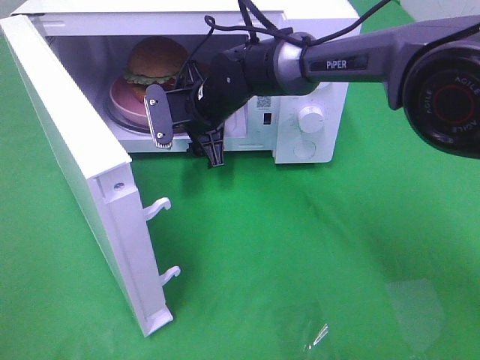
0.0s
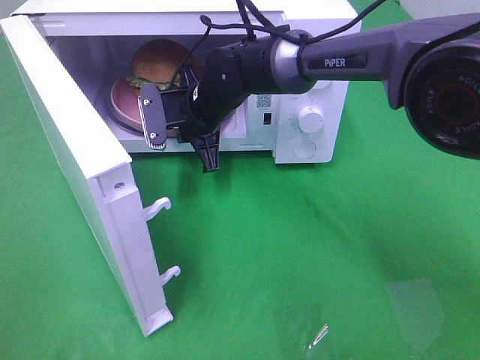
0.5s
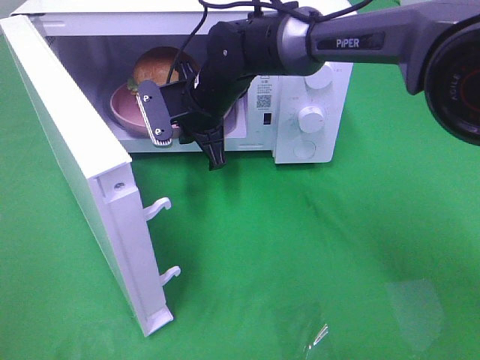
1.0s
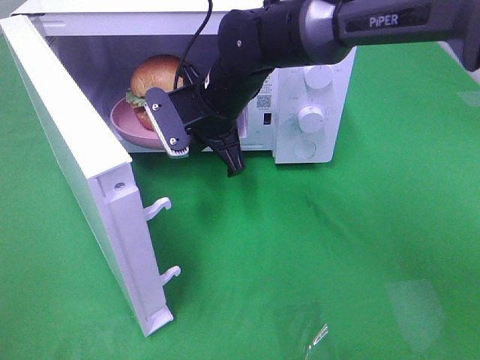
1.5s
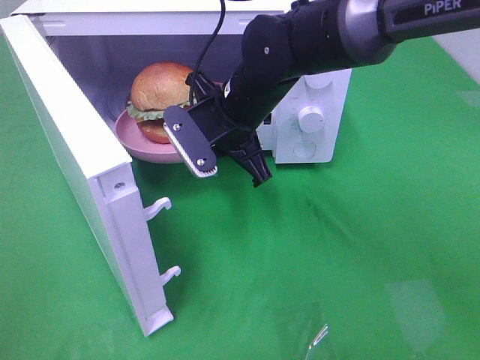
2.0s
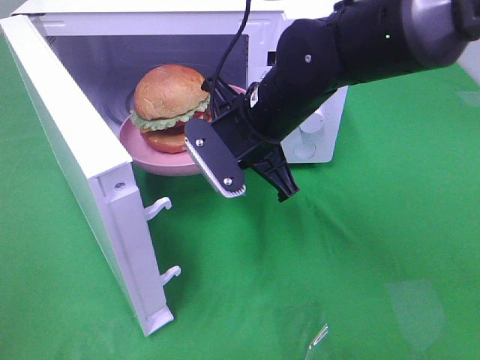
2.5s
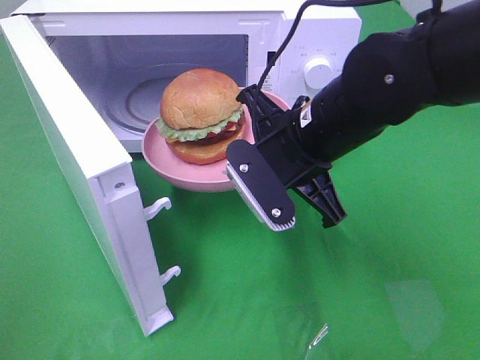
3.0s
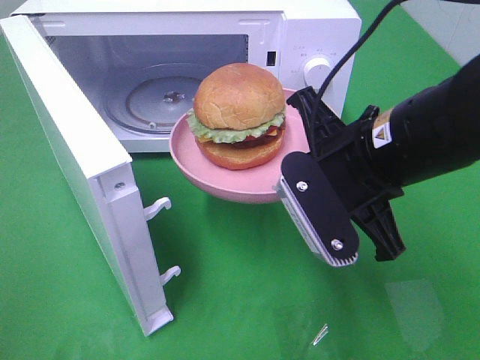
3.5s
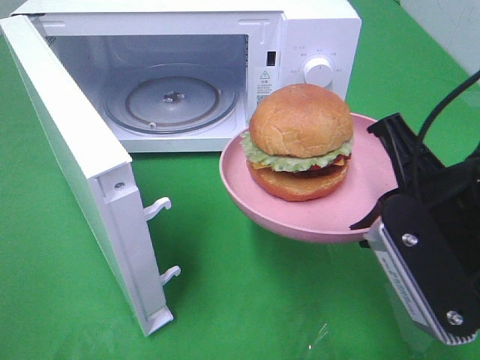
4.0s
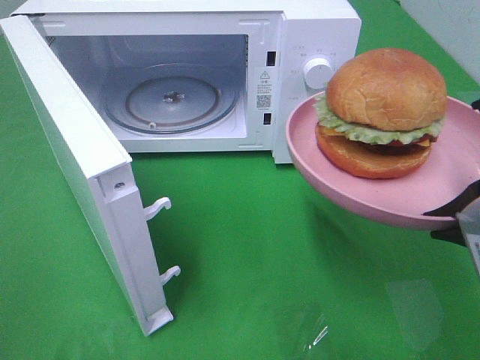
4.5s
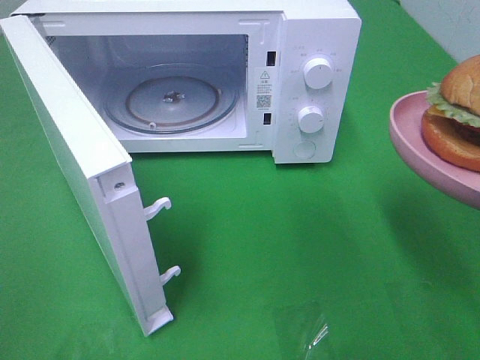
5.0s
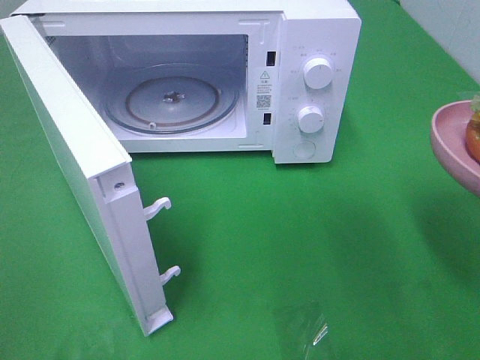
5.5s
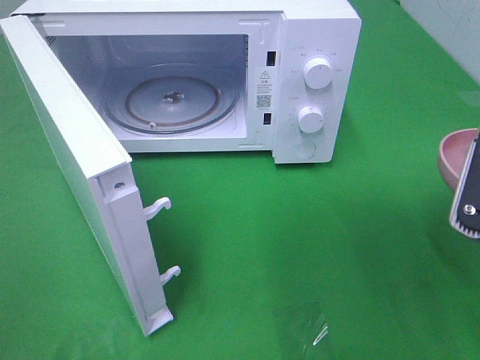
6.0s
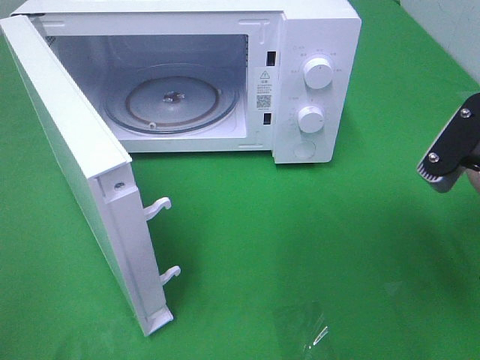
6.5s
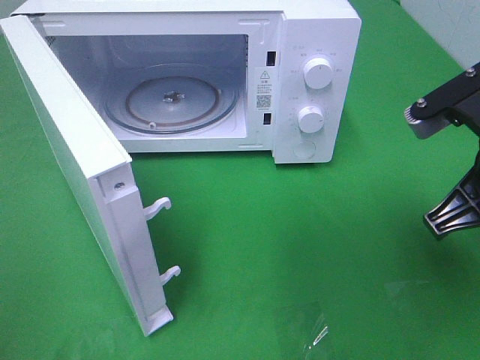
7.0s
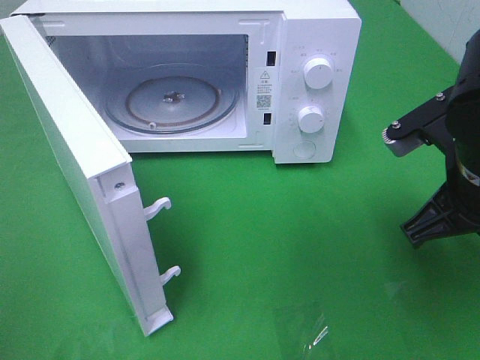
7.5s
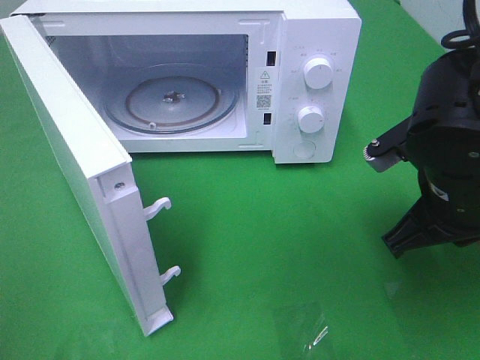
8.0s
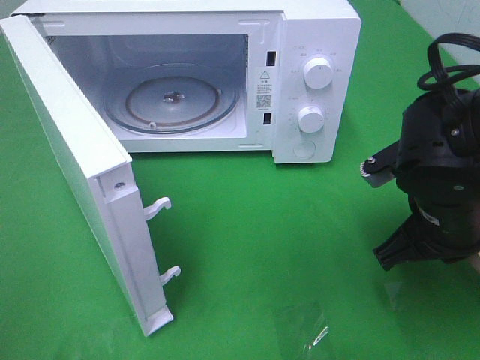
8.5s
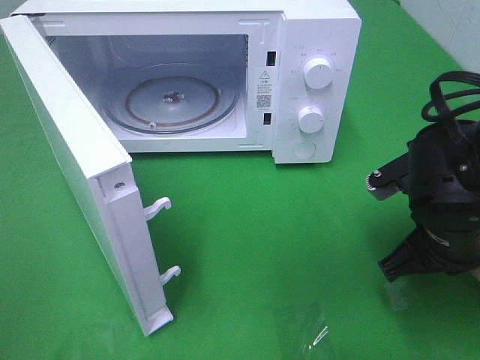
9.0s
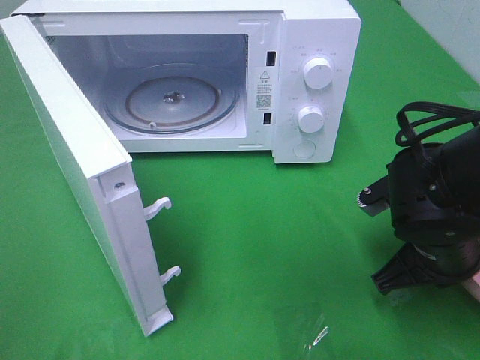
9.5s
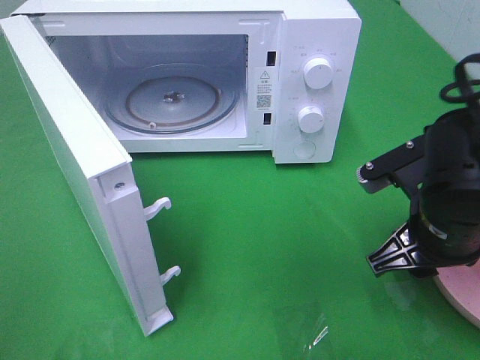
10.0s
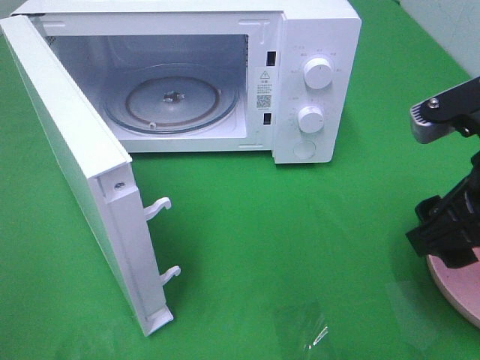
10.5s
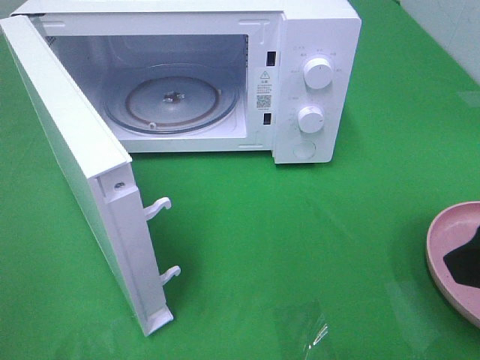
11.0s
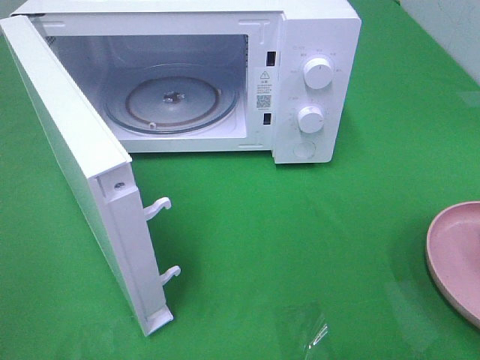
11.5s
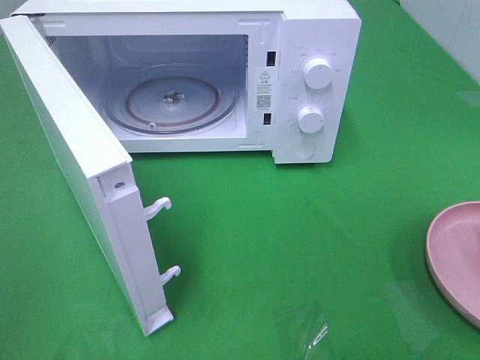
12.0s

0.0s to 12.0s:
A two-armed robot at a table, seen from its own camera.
Task of the whole recording: Heat the burger.
Step, 1.0s to 9.5s: Right hand: place the plate on the table.
0.0s to 2.0s: The right gripper heads backward, covering roughly 10 cm, and closes.
2.0s to 4.0s: The right gripper heads backward and to the right, covering some 25 cm.
4.0s to 6.0s: The right gripper is displaced to the right by some 5 cm.
6.0s to 8.0s: The right gripper heads forward and downward, covering approximately 10 cm.
8.0s to 10.0s: The right gripper opens.
10.0s to 12.0s: The right gripper shifts about 30 cm backward, upward and to the right.

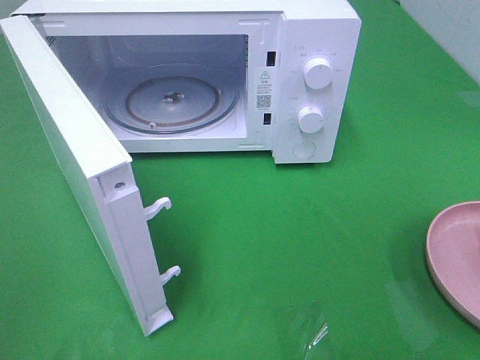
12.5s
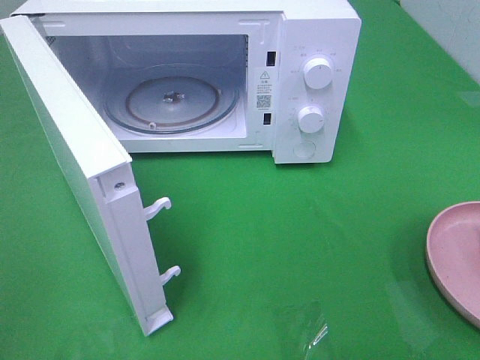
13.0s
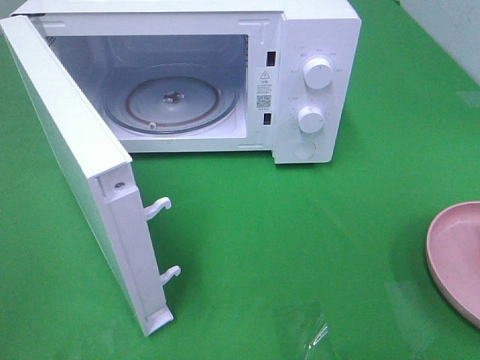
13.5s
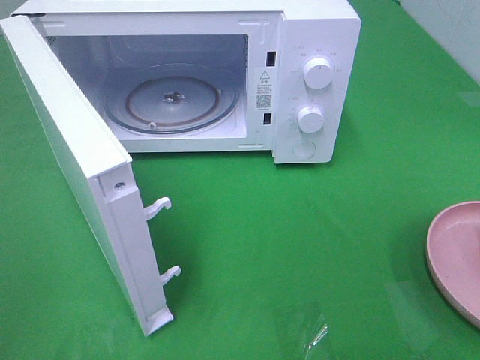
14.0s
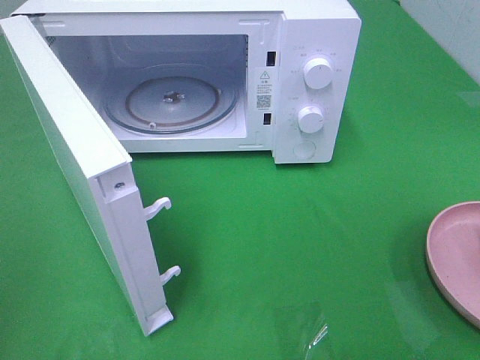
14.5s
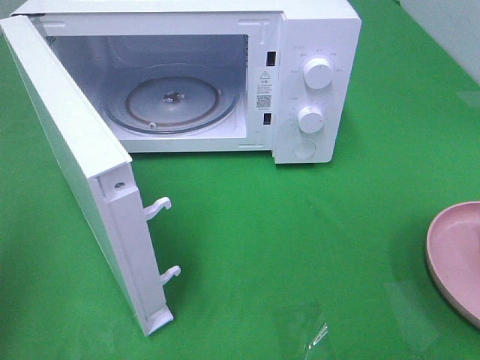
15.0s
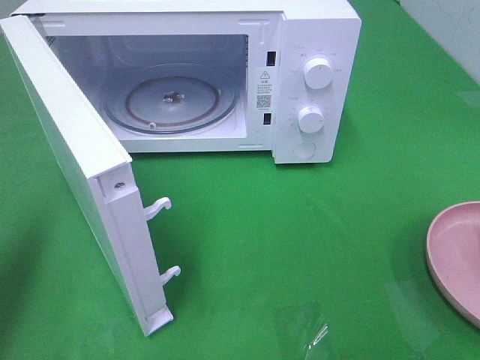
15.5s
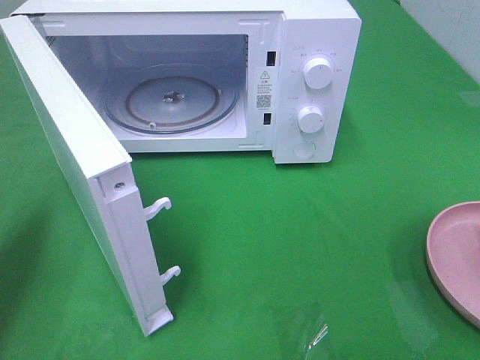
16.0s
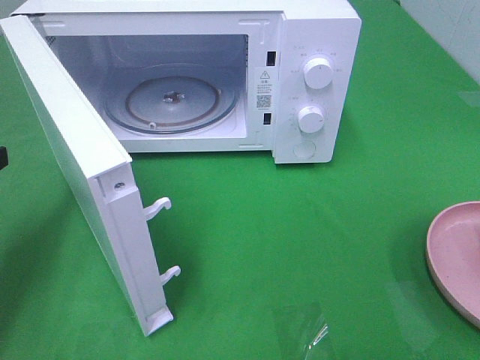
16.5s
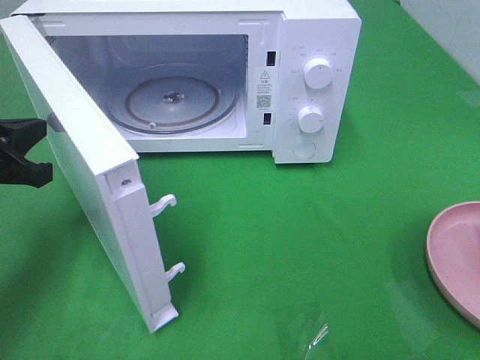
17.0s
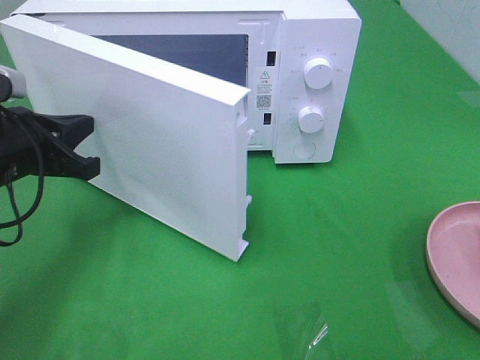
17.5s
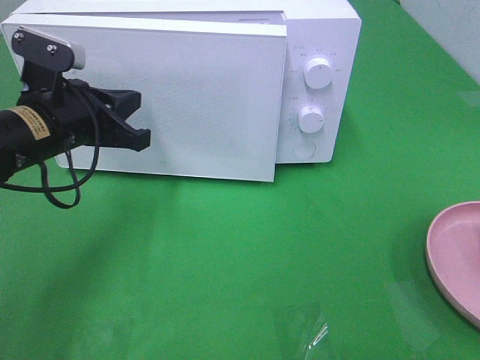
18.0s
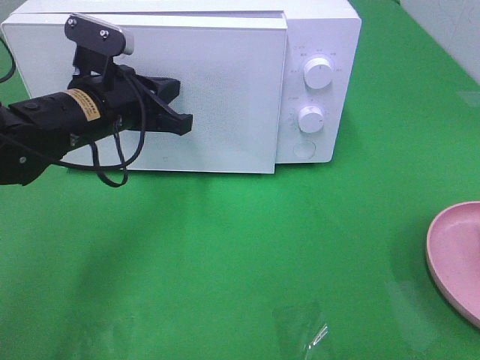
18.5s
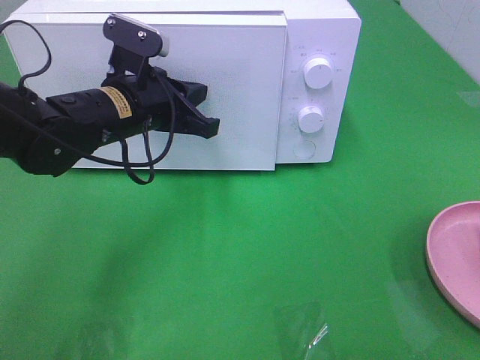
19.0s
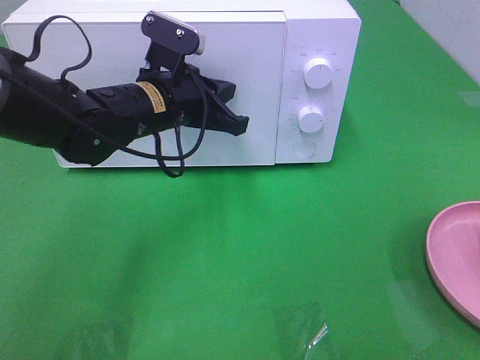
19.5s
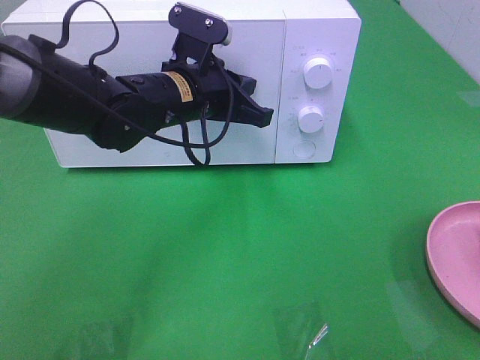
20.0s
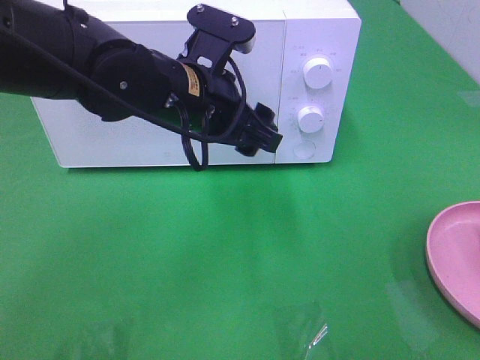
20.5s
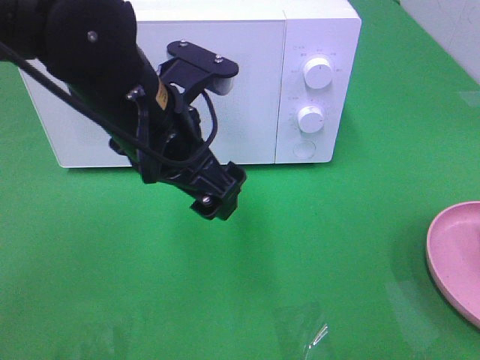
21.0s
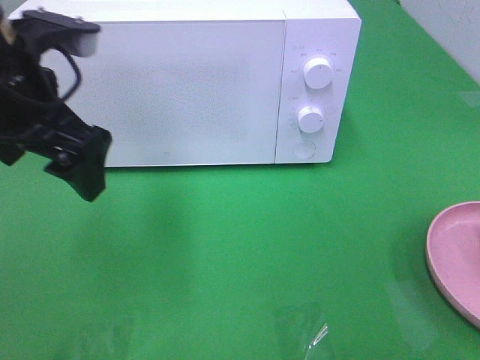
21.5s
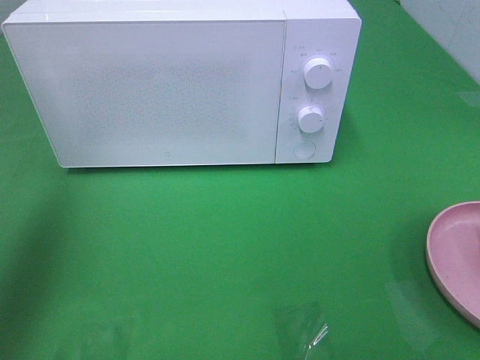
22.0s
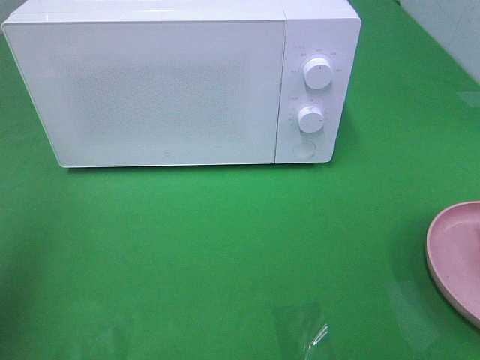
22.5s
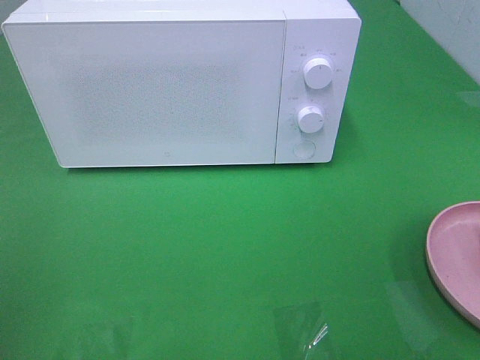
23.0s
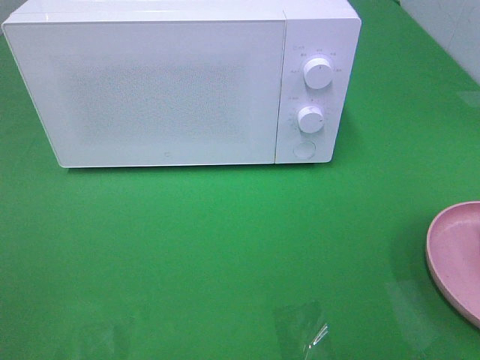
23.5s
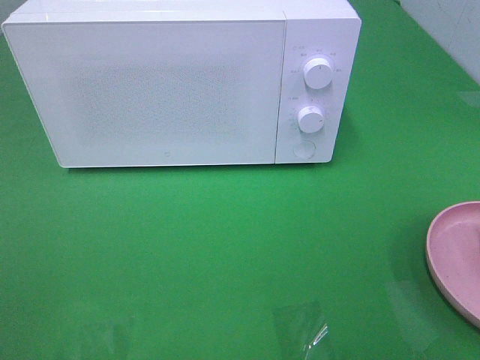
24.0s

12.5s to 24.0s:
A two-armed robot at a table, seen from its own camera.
Task of the whole recording: Heat the burger.
Step, 12.5s to 20.0s: Left hand: close the microwave door.
14.5s to 16.5s: The left gripper shifts approximately 25 cm forward and downward, and closes up.
16.5s to 18.5s: The left gripper travels to the right and forward by roughly 20 cm.
18.5s to 20.0s: The left gripper shifts approximately 10 cm to the right.
20.0s to 22.0s: The left gripper goes some 35 cm to the left, upward and backward, and opens its fingers.
22.0s to 24.0s: The left gripper goes roughly 25 cm backward.
